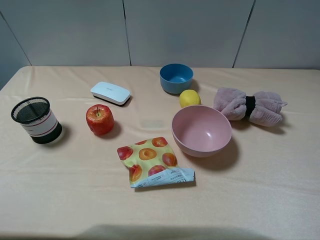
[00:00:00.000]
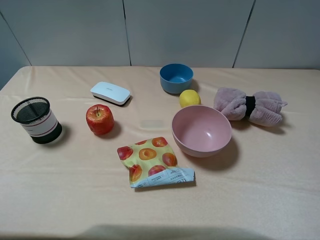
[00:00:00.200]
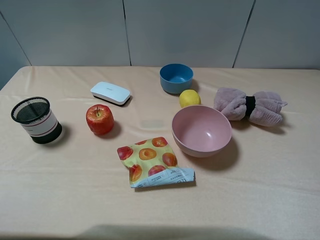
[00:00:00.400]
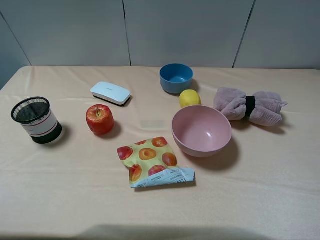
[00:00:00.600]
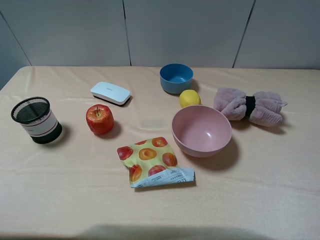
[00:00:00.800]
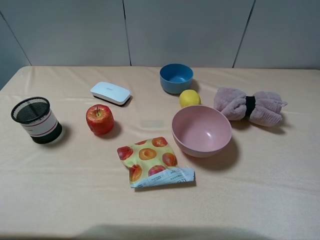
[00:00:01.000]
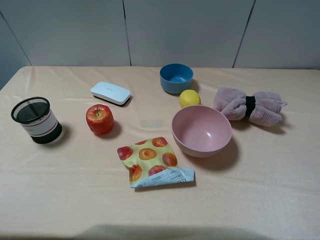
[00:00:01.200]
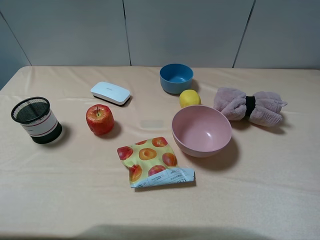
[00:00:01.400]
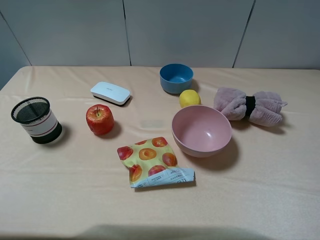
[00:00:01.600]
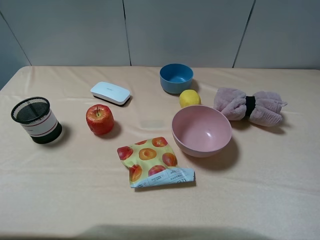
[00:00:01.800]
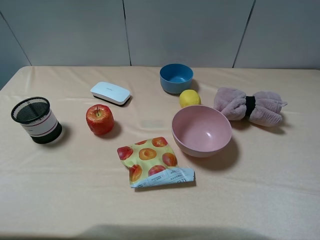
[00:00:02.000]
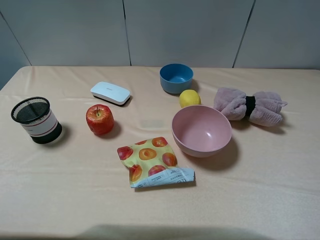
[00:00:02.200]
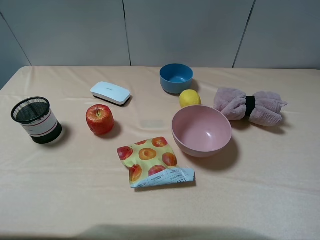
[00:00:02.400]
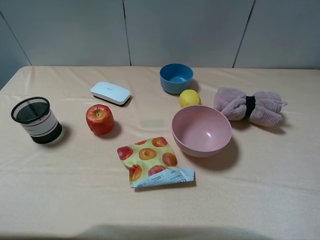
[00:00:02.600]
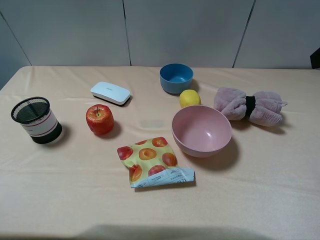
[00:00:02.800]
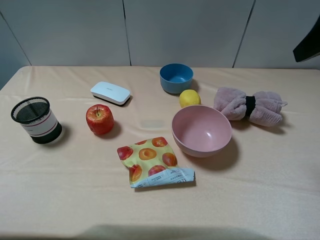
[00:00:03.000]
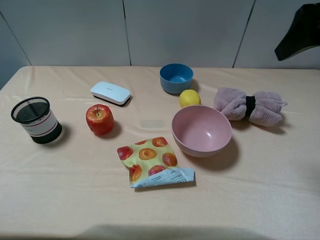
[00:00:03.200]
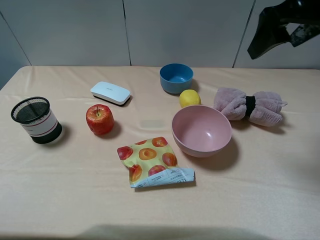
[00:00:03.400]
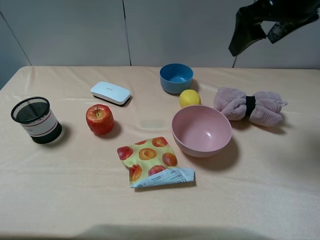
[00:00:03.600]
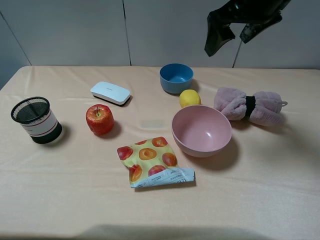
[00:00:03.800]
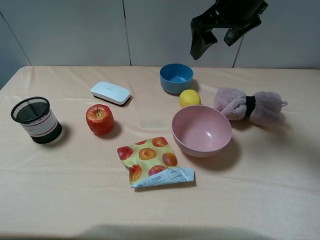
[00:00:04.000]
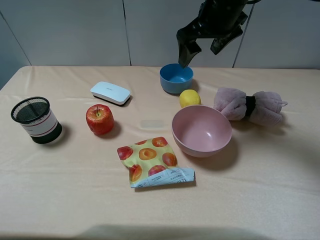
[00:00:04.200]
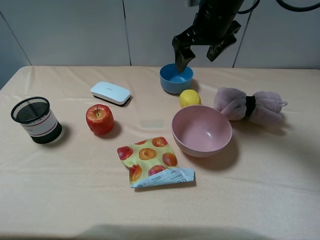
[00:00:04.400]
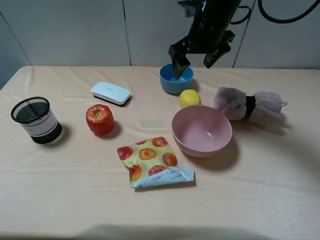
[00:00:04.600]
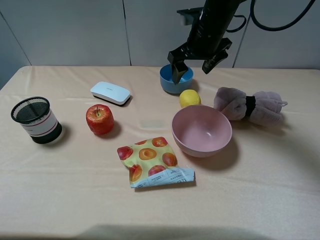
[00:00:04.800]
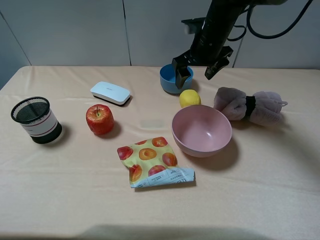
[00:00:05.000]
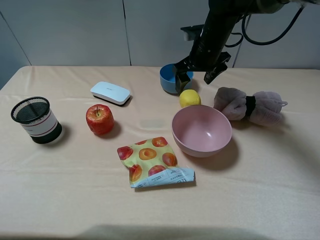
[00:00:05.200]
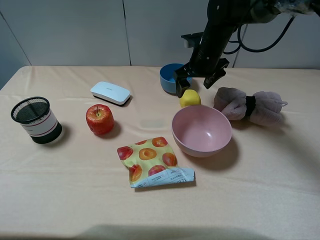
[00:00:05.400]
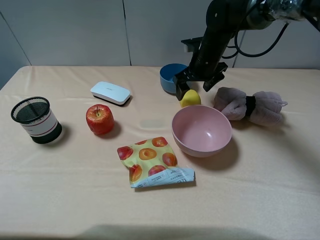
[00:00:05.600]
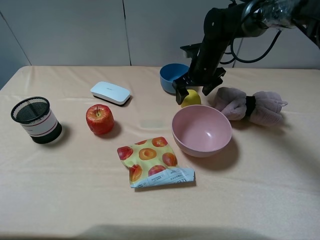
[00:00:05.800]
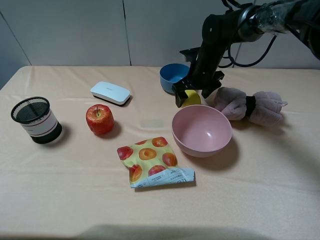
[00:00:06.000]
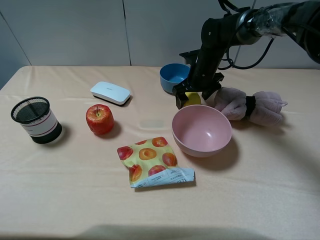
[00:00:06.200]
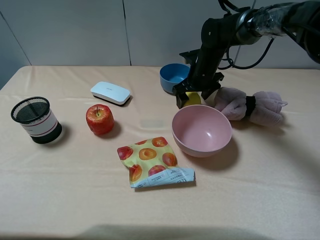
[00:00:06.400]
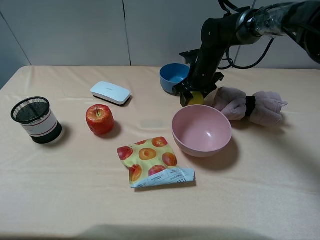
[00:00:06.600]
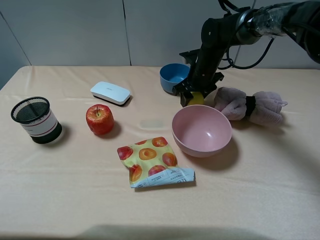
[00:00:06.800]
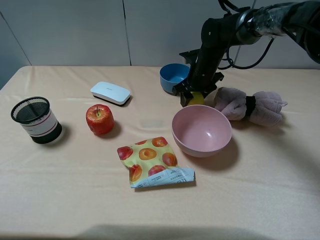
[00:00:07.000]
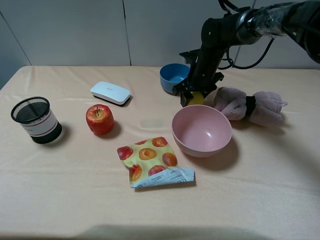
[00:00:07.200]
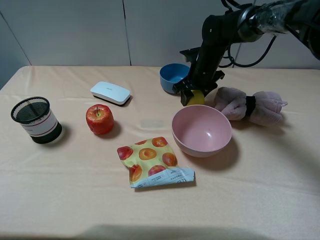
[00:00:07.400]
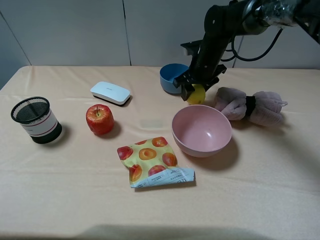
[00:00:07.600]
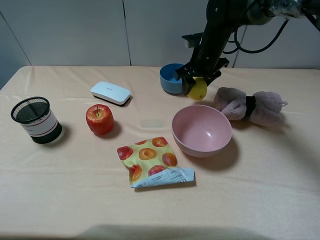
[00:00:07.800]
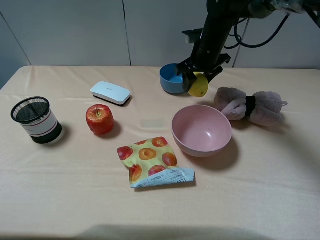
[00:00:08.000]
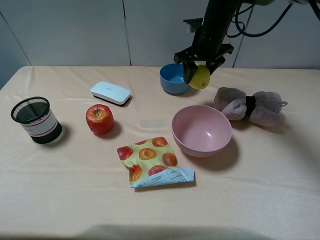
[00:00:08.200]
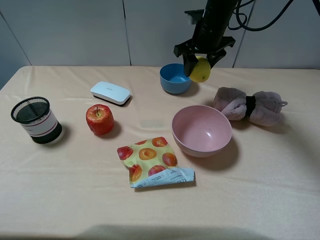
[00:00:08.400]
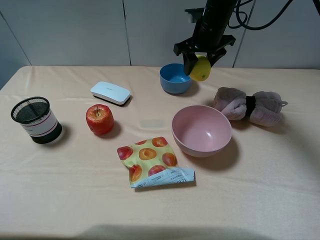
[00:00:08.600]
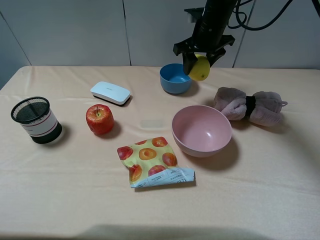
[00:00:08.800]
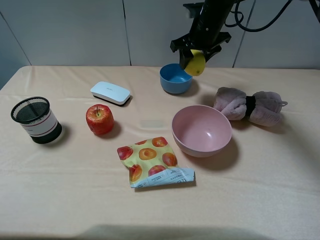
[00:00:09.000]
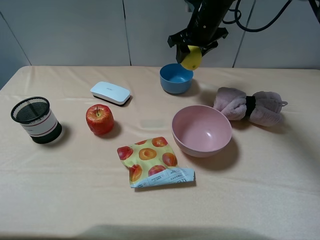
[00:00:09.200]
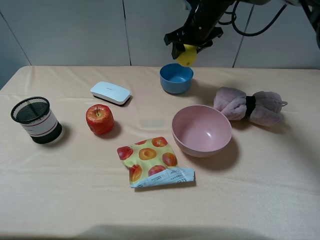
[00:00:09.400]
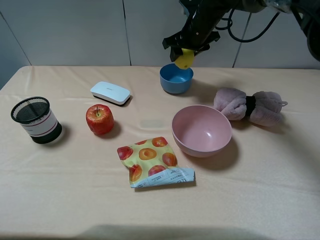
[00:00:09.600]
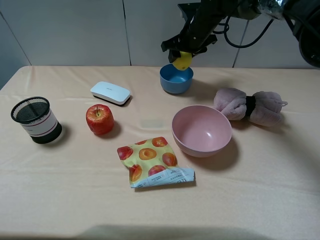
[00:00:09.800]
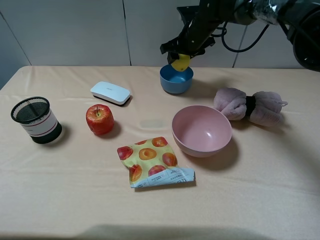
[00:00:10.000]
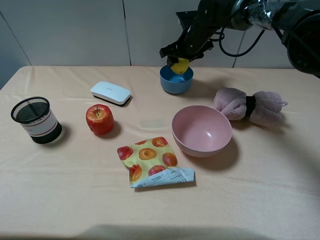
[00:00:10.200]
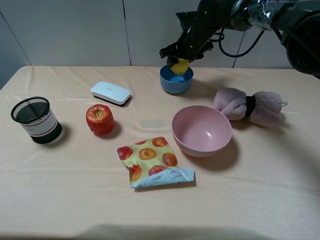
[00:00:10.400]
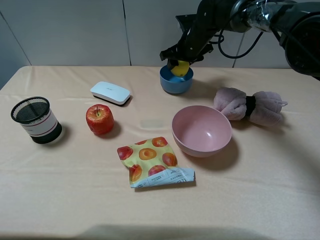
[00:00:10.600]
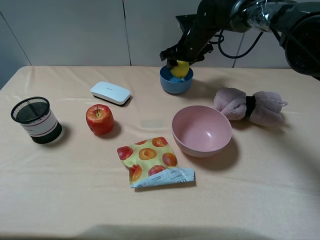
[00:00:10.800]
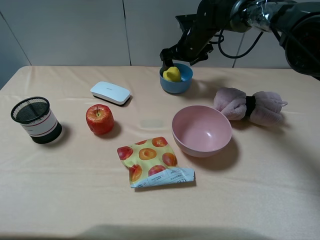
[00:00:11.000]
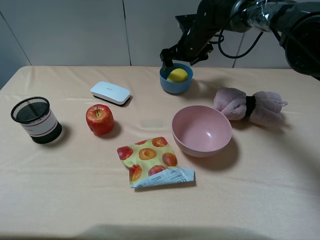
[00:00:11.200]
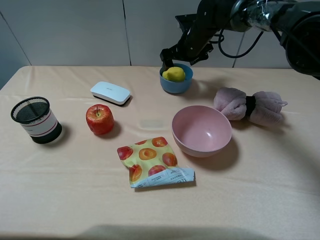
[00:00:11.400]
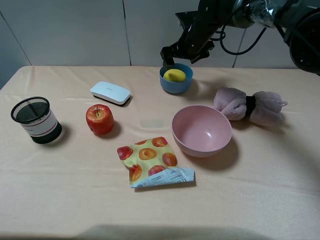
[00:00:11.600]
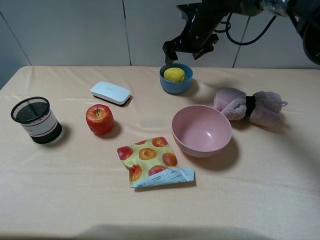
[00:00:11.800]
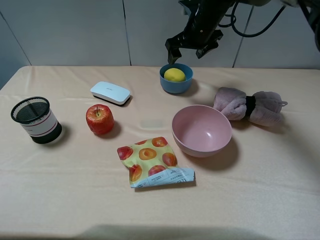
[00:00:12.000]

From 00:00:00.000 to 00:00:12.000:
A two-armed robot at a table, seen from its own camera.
Task of the whole recording: pick up an item with a gripper and place it in a random container on the table.
Step, from 00:00:00.000 to 00:00:06.800: Grasp the yellow lemon with the right gripper.
Step, from 00:00:07.000 to 00:00:12.000: Place the yellow lemon into the blue bowl with the right gripper.
From 00:00:00.000 to 00:00:01.600: The two grippers keep their place.
From 00:00:01.600 to 00:00:03.000: The right gripper heads forward, covering approximately 25 cm.
From 00:00:03.000 to 00:00:04.400: The right gripper heads to the left, forward and downward, covering about 25 cm.
From 00:00:04.400 to 00:00:06.000: The right gripper shifts some 15 cm downward.
From 00:00:06.000 to 00:00:07.600: The right gripper closes up.
From 00:00:07.600 to 00:00:09.000: The right gripper shifts about 10 cm upward.
From 00:00:09.000 to 00:00:10.400: The right gripper goes about 5 cm downward.
From 00:00:10.400 to 00:00:12.000: The right gripper heads upward, covering about 5 cm, and opens up.

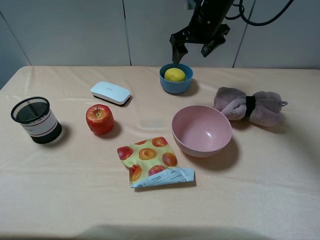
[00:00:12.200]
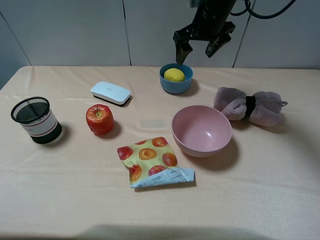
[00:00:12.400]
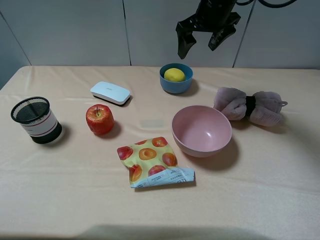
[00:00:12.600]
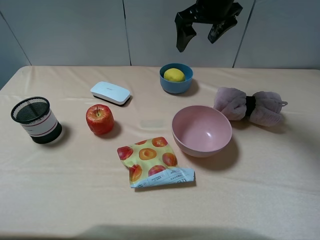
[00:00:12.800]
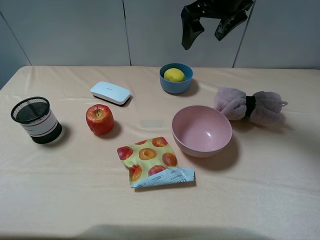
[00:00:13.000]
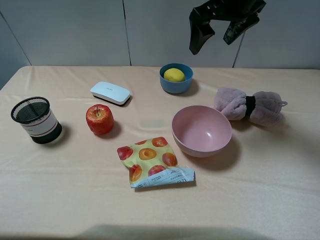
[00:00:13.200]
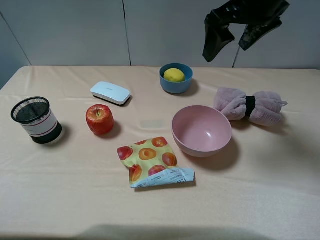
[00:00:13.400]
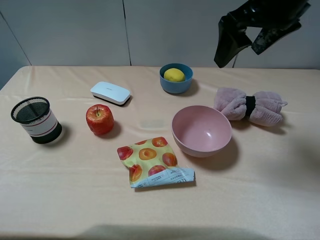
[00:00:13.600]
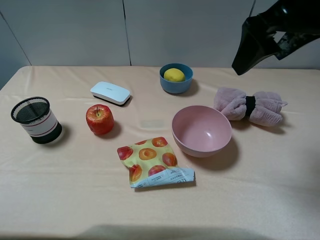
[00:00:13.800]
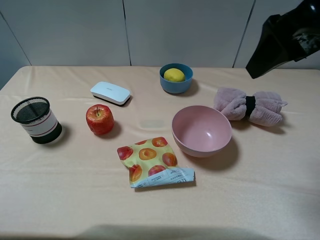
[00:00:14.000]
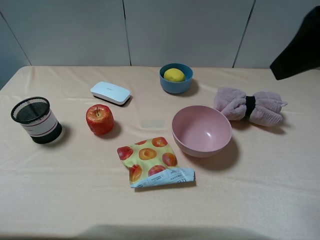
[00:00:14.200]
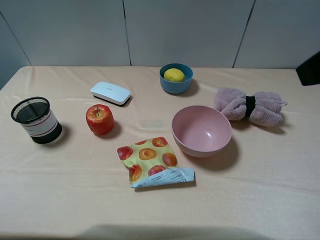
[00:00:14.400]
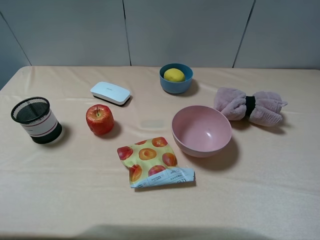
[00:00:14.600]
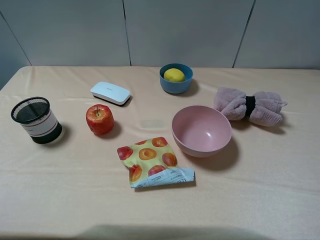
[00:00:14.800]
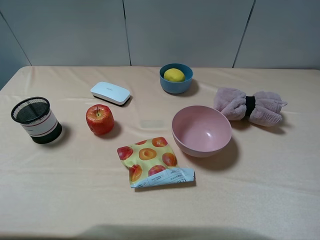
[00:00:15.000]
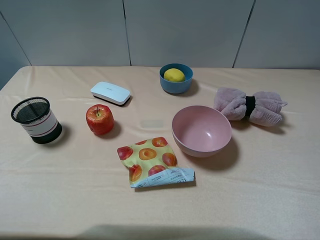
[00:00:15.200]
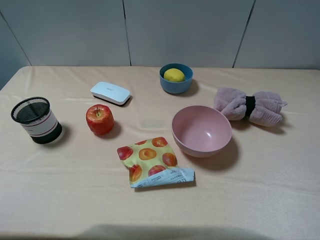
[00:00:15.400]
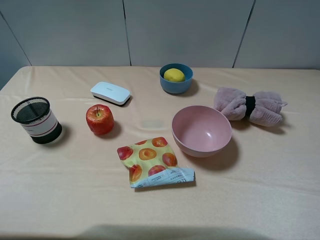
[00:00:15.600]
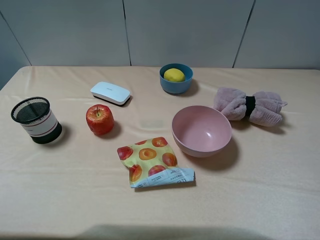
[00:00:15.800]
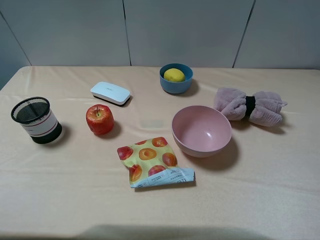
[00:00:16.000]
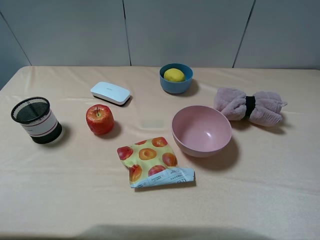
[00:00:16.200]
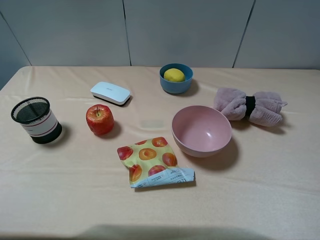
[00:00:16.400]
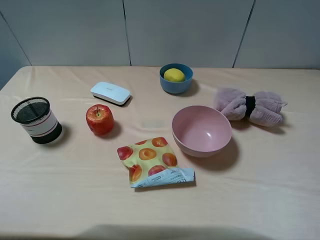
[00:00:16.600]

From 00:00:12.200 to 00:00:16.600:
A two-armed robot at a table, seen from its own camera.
Task of the whole recording: pick up an item with a gripper and place it in a random container on the table.
From 00:00:12.200 to 00:00:13.600: The right gripper travels backward and upward by some 20 cm.
From 00:00:13.600 to 00:00:15.200: The right gripper travels backward and to the right by roughly 30 cm.
